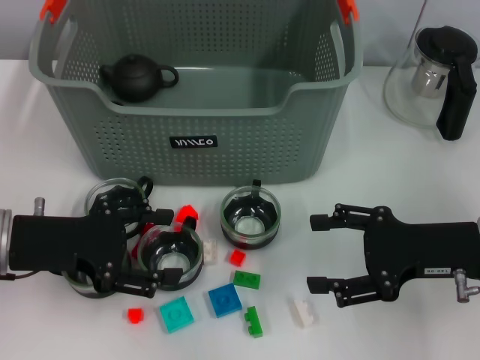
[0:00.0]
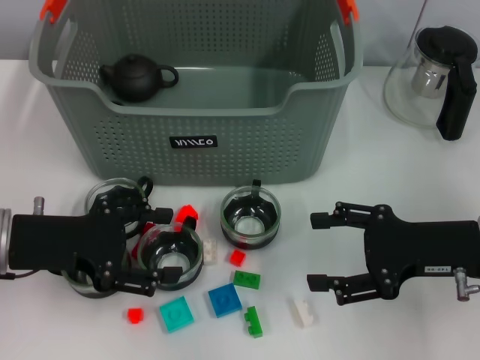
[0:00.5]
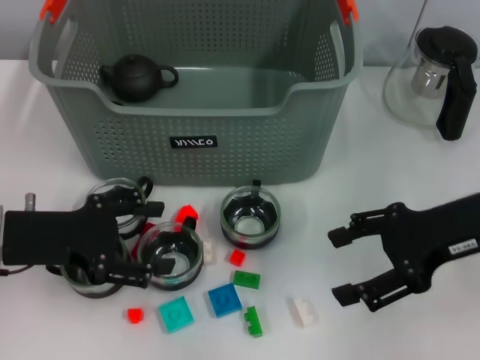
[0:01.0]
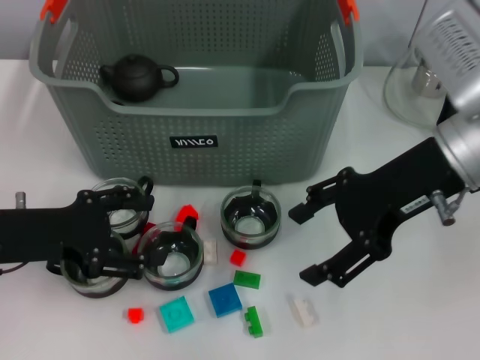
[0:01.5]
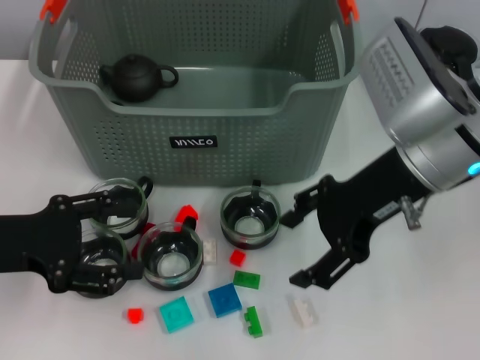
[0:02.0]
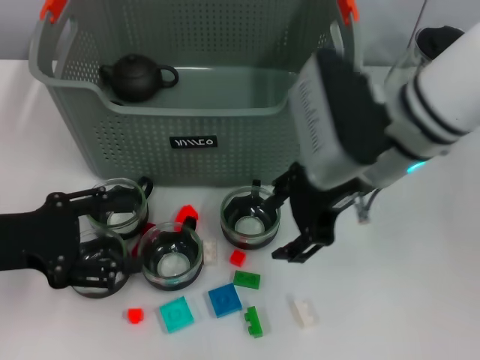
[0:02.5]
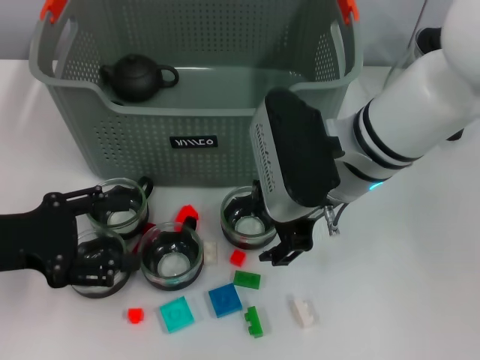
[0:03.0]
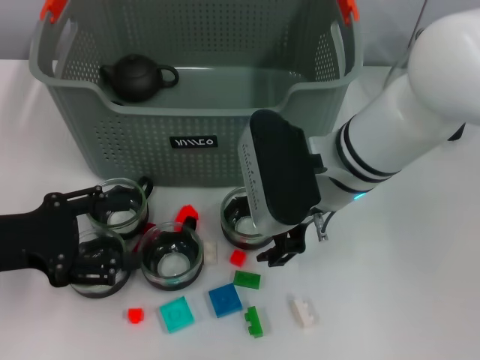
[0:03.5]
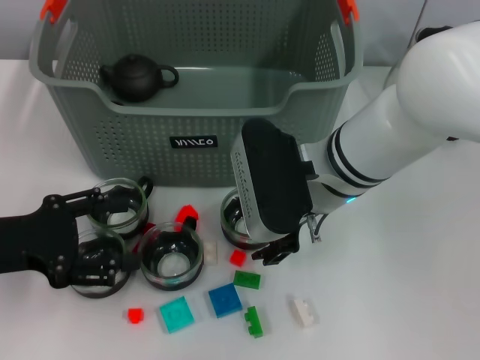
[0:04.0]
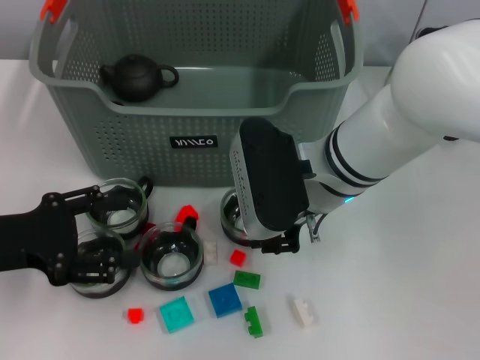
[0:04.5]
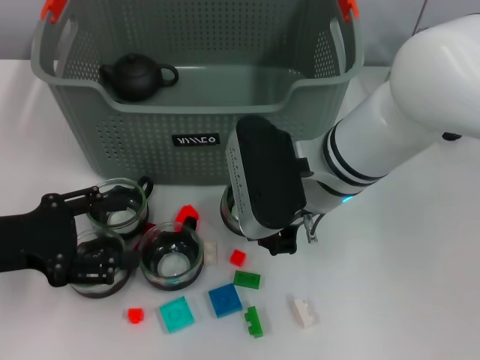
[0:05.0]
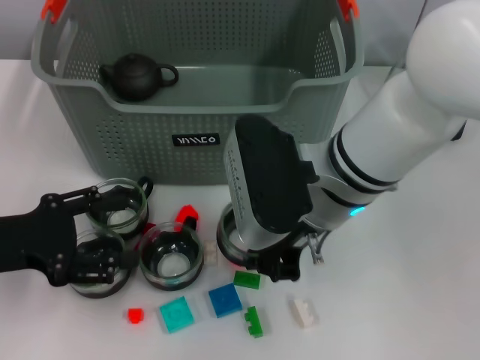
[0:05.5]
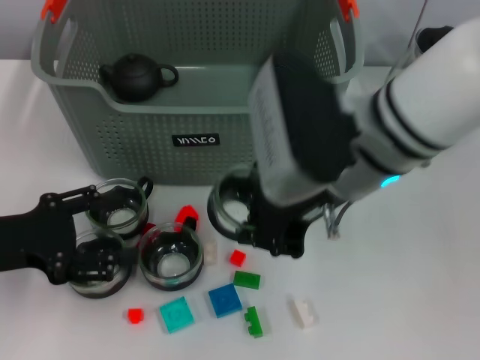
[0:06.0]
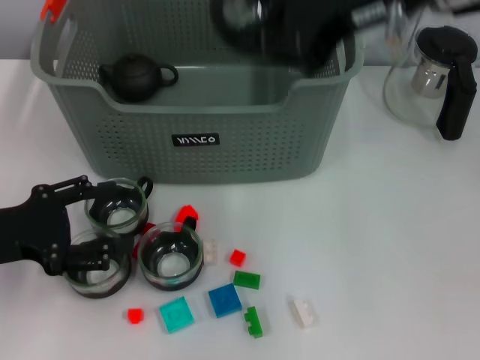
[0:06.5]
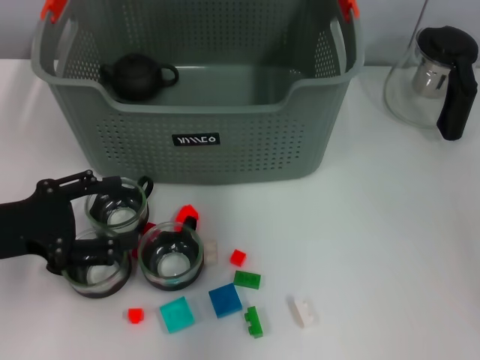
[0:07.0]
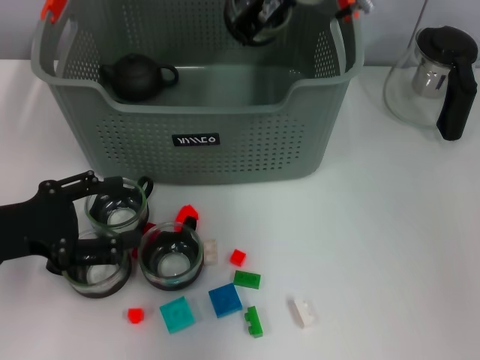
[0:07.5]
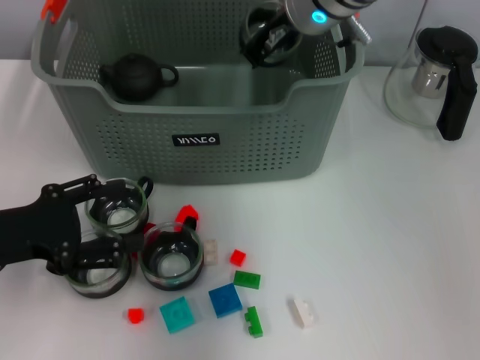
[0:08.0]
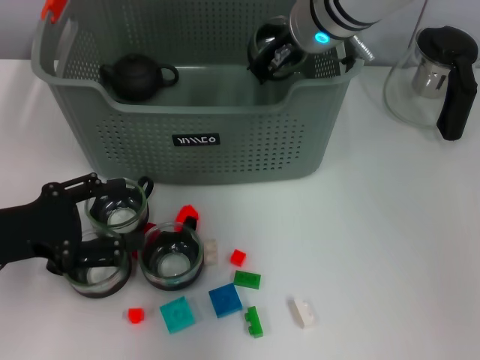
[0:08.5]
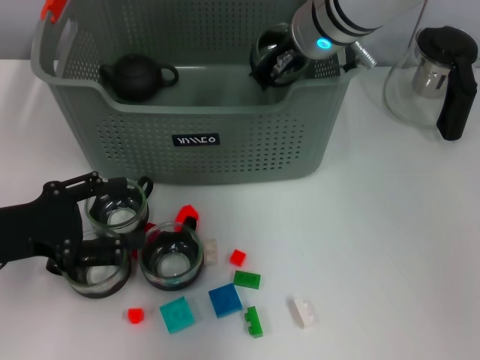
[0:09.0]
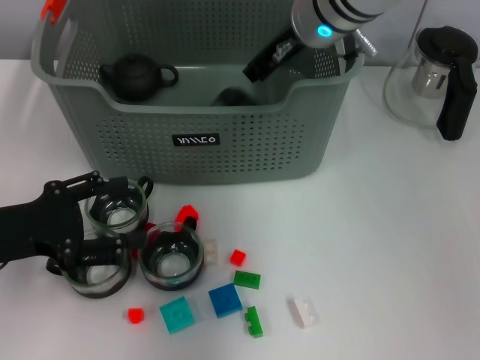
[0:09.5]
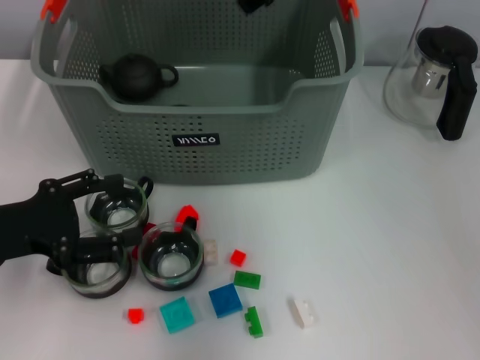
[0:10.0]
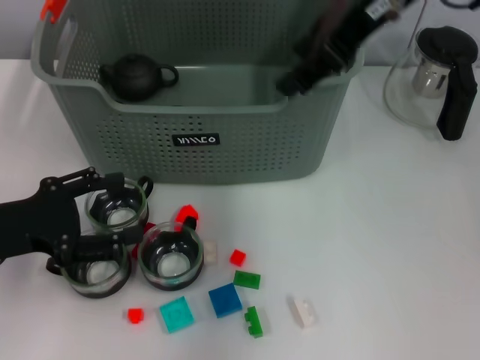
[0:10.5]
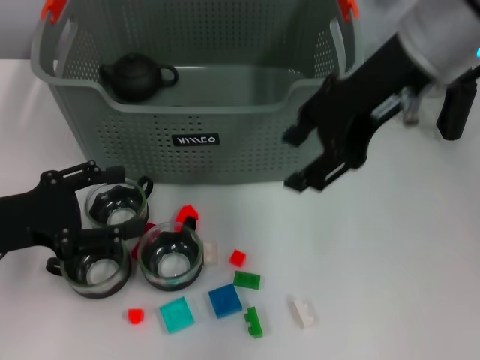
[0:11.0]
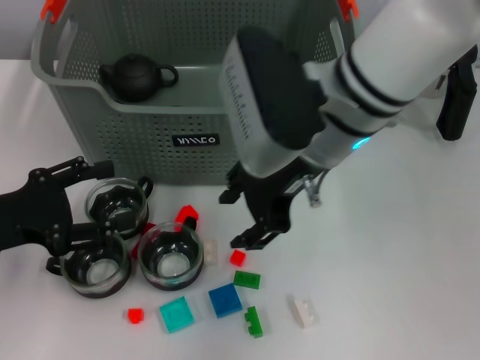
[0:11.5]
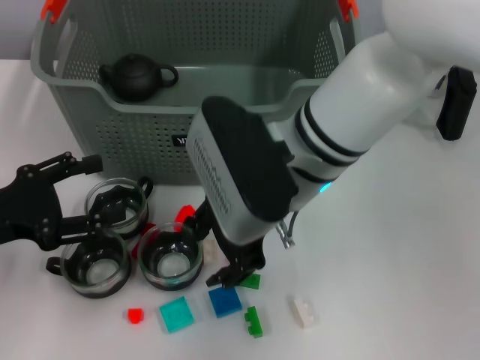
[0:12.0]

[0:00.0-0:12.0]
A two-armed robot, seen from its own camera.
Task of the whole recording: pick up the teacup on the table and place it into the storage bin, pick up the block on the table and place it into the storage bin.
Step, 0.0 to 4.5 s: Grasp the cup with right gripper.
Step, 5.0 to 9.5 s: Place the cup in the storage box with right gripper.
0.0 to 2.0 s: The right gripper goes about 15 cm upward, to the left and forward.
2.0 to 4.0 s: The right gripper heads to the left and downward, covering some 10 cm.
4.0 to 6.0 s: The right gripper shifts approximately 10 cm upward, and closes up.
6.0 to 8.0 s: The right gripper travels forward by about 15 cm.
8.0 to 10.0 s: The right gripper moves upward, about 10 cm, and opens.
10.0 to 12.0 s: The right gripper moves downward and backward, some 20 cm.

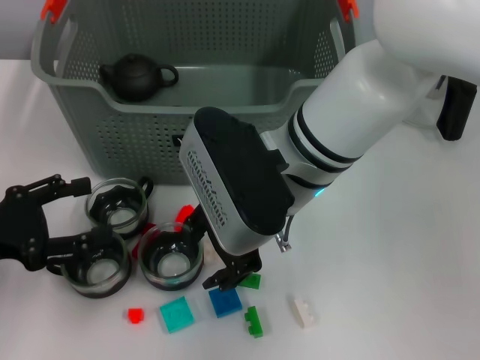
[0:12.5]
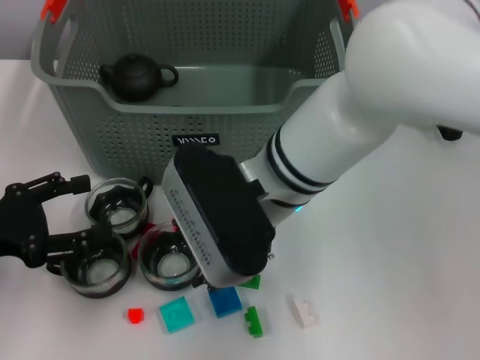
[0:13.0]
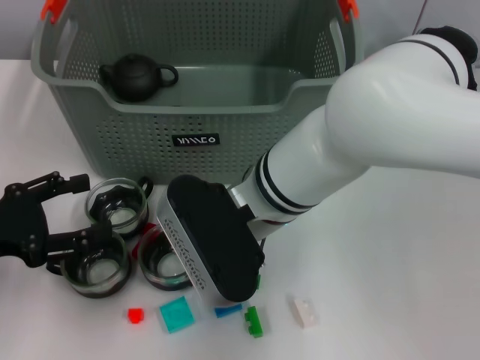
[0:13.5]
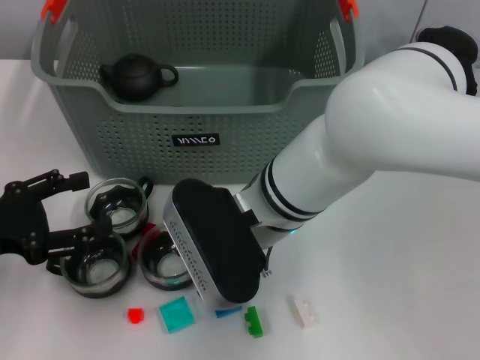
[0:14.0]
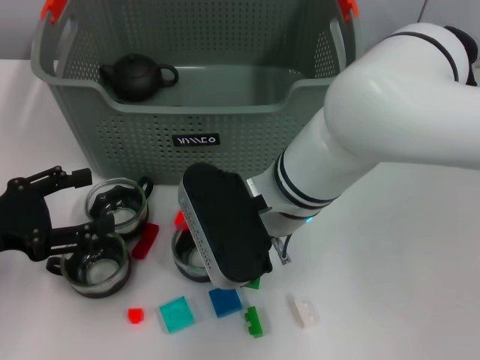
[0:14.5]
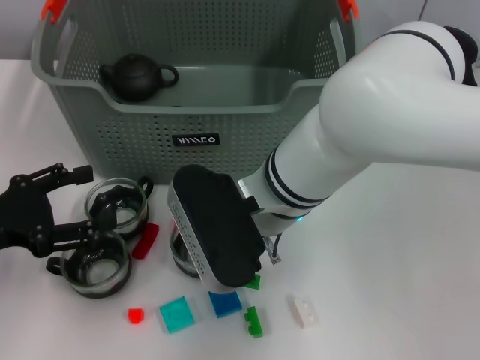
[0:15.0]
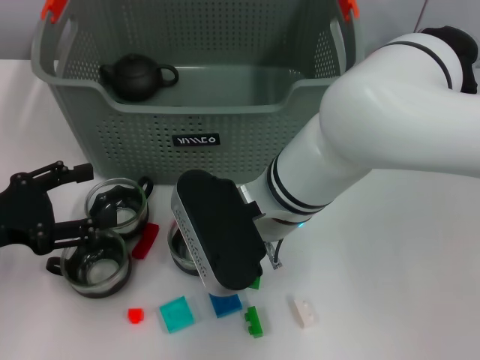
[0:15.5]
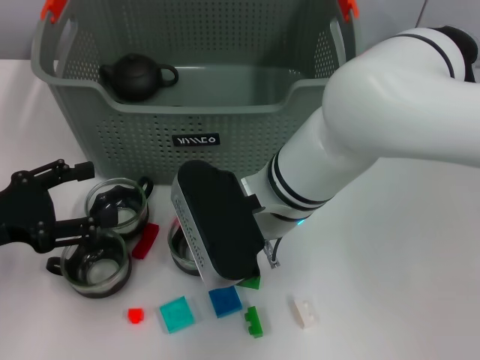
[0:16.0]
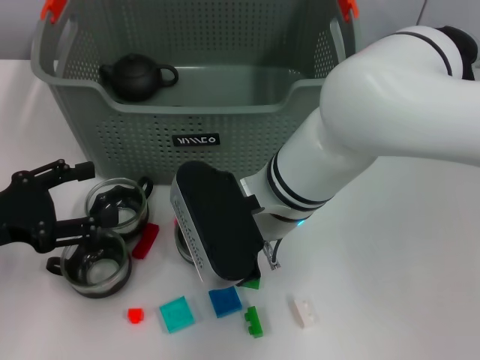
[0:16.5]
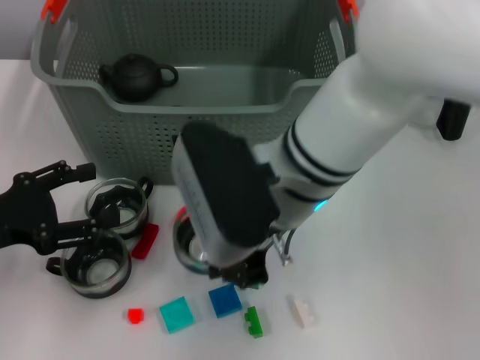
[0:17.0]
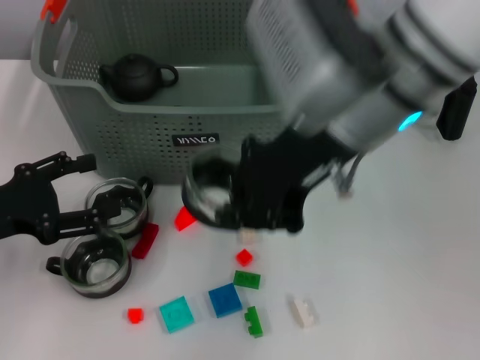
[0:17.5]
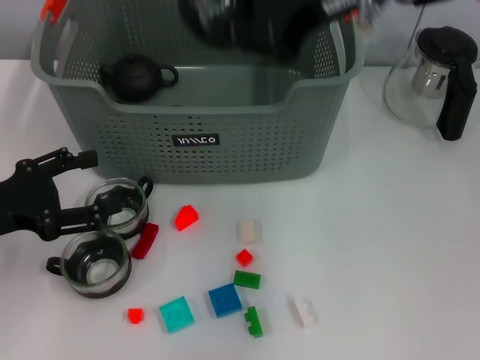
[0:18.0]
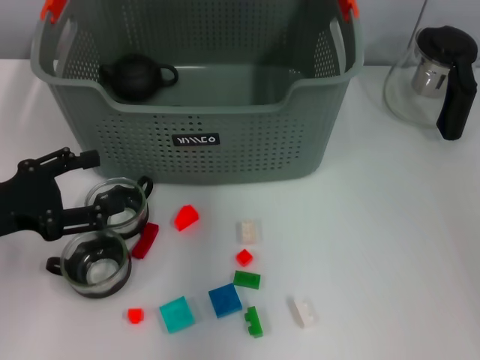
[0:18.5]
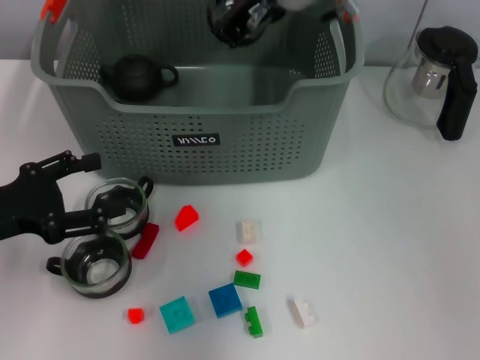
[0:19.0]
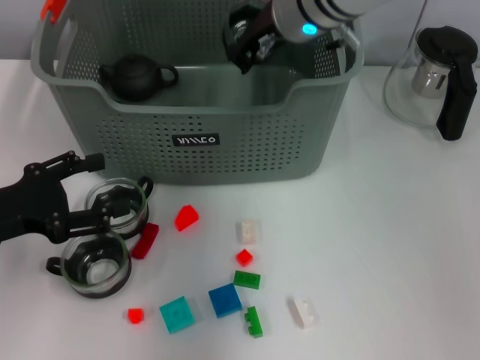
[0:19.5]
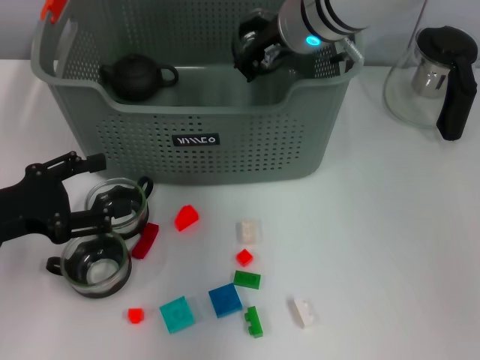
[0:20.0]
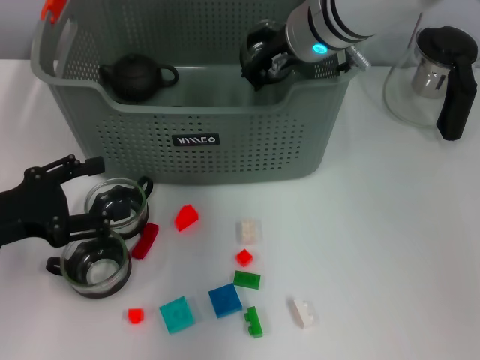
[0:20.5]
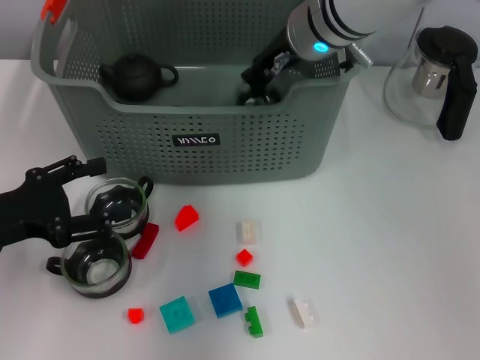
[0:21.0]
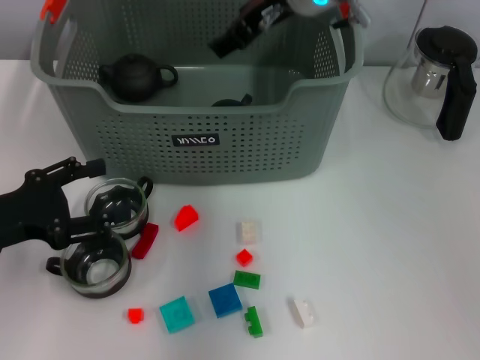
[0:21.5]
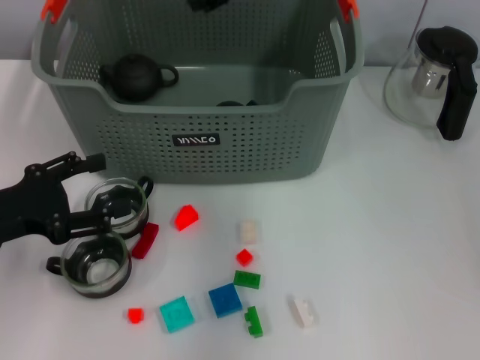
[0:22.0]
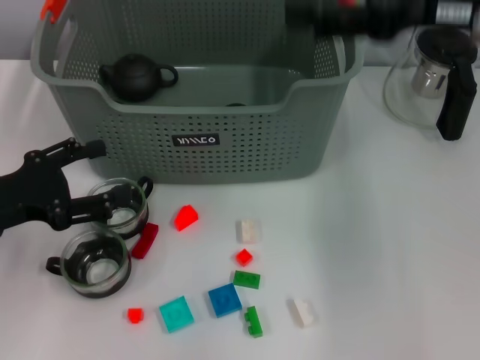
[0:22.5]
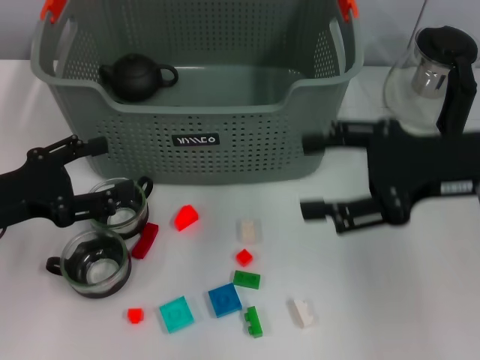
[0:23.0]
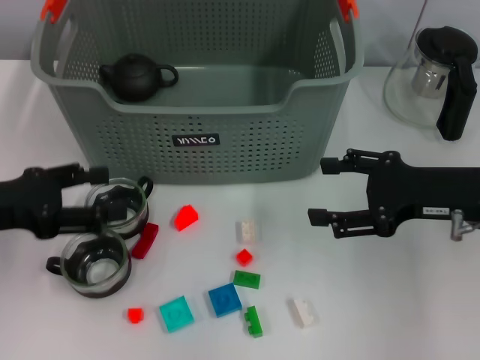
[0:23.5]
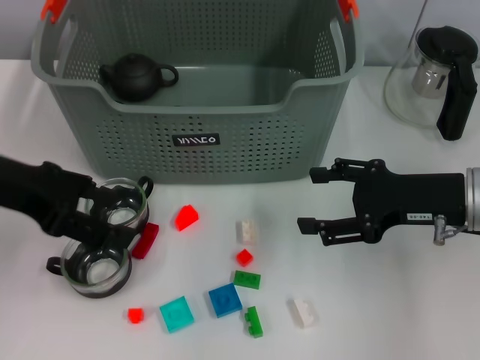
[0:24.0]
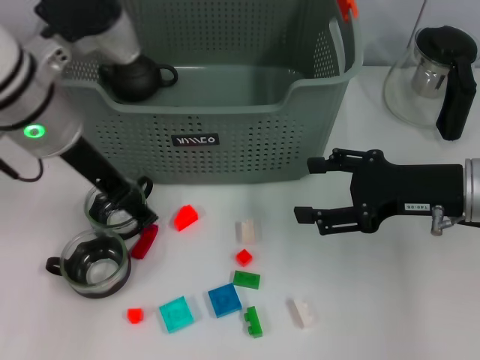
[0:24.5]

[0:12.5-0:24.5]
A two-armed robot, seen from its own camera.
Task of the whole recording: pick up the teacup on the table and place it into the storage bin, pick up the block on the table and place it into the storage bin.
Step, 12.5 to 15.5 s: Grasp the cup with right gripper.
Step, 16.0 to 21.0 s: Place the cup in the storage box with right gripper.
14.5 to 16.5 s: The right gripper closes its fingers.
16.5 to 18.5 s: The right gripper travels upward and forward by some 20 cm.
18.5 to 20.5 s: The right gripper shifts roughly 10 cm downward.
20.5 to 22.5 s: The right gripper shifts roughly 20 cm to the right, backward and upward, and opens its fingers.
22.5 to 24.5 s: The right gripper moves downward, roughly 15 cm. Meanwhile the left gripper travels to the right, upward and forward by approximately 20 cm.

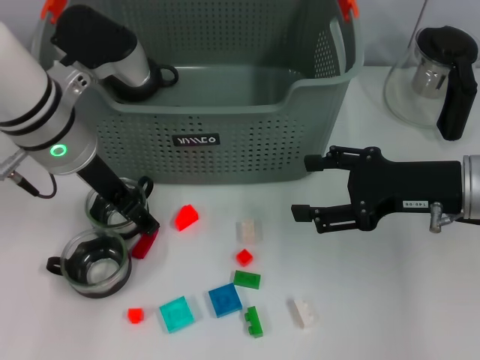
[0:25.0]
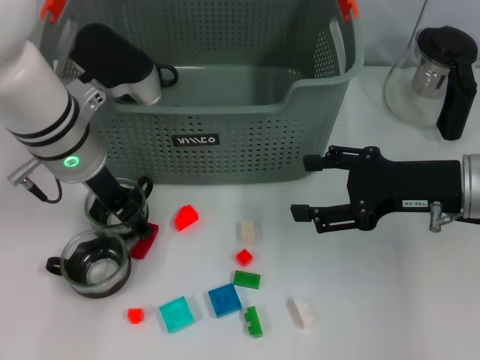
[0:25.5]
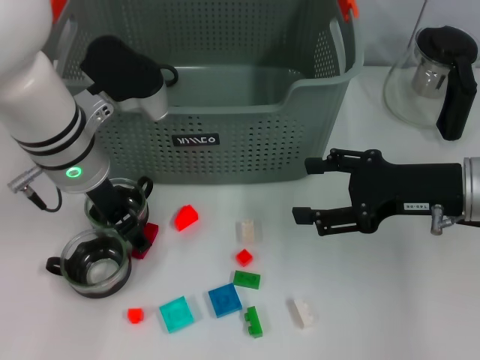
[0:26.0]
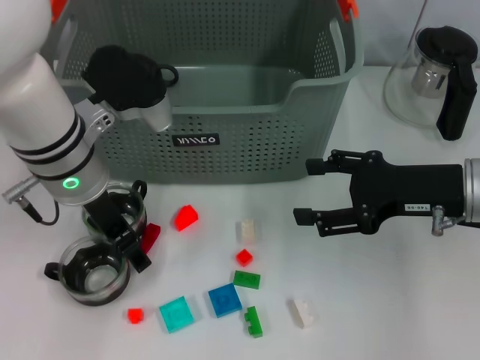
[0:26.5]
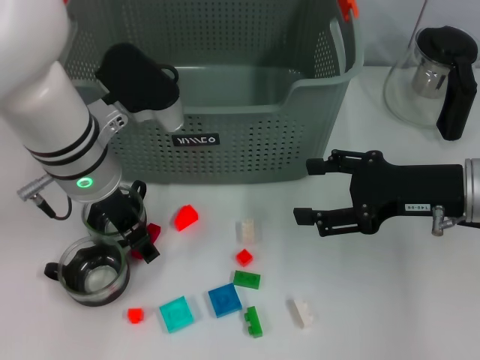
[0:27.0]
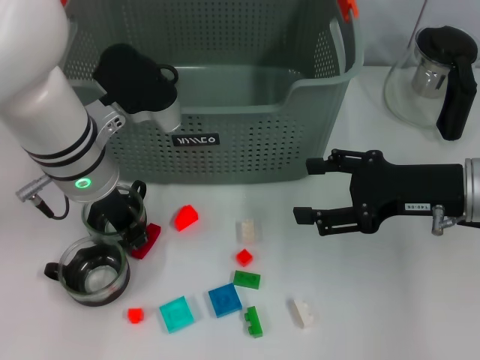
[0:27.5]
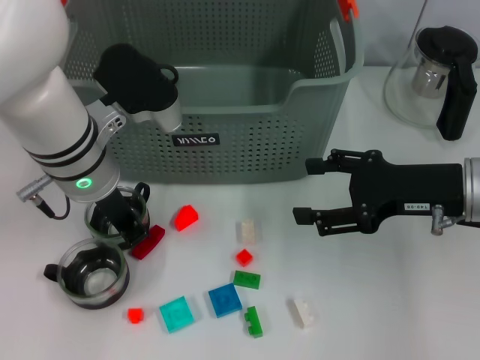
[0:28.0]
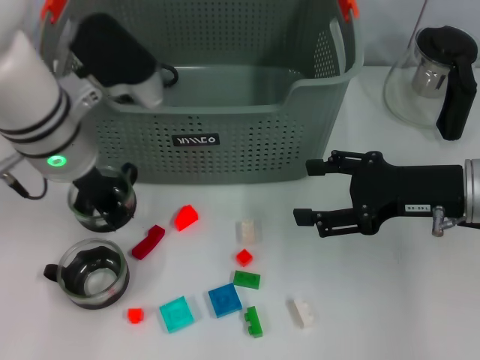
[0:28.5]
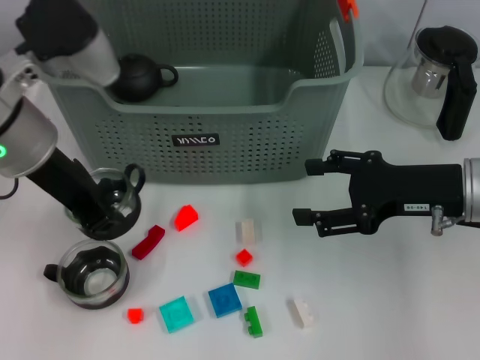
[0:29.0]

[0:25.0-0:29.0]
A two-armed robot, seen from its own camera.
Task of the whole recording: pick up the teacup on the table and place it into the storage bin, pick up the block on the table and place it into the storage bin.
Step, 25.0 to 27.5 s: Grasp the cup with left gripper.
25.0 to 27.0 s: The grippers stay close to where they were, moving slightly.
27.0 to 29.0 s: The left gripper goes roughly 5 cm upward, and closes its fingers.
